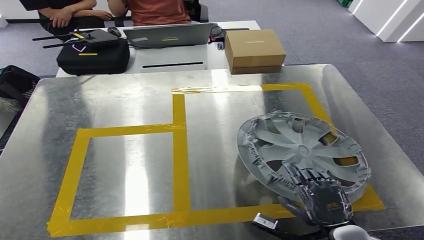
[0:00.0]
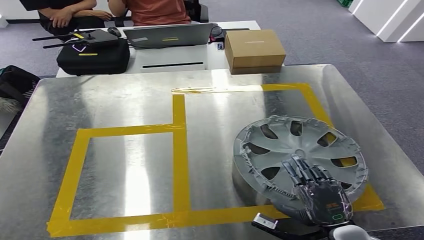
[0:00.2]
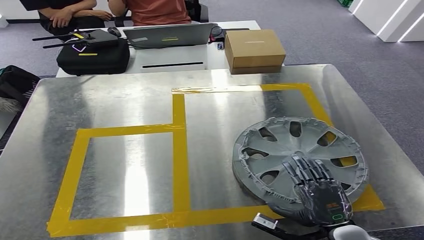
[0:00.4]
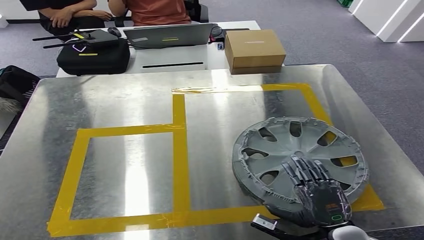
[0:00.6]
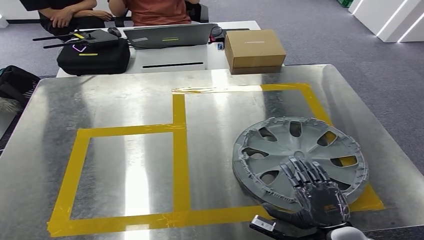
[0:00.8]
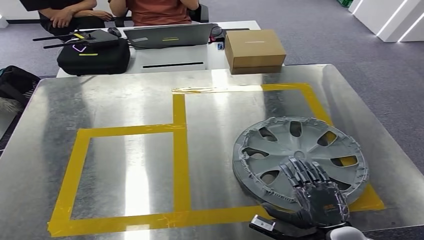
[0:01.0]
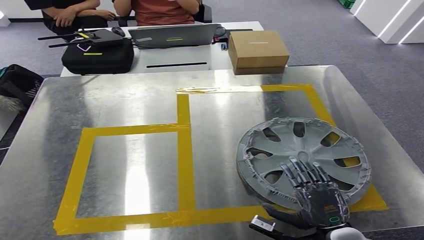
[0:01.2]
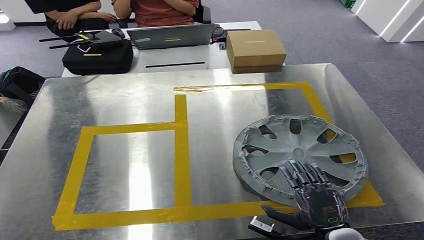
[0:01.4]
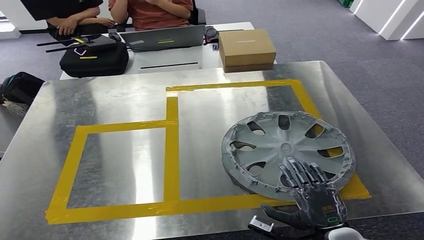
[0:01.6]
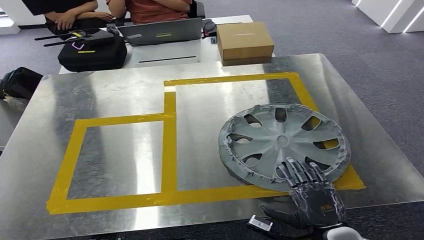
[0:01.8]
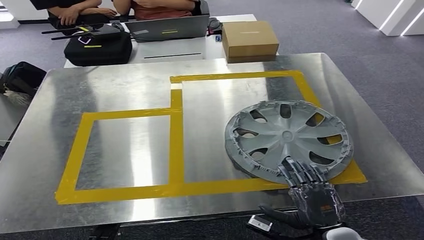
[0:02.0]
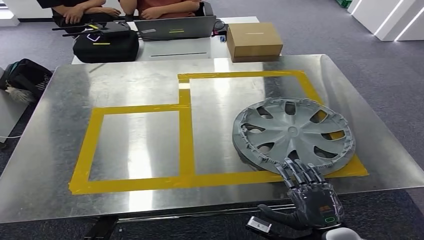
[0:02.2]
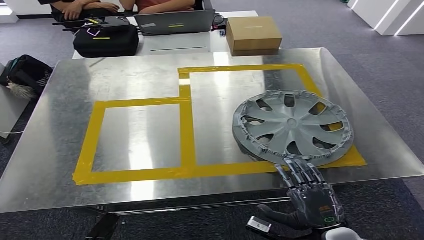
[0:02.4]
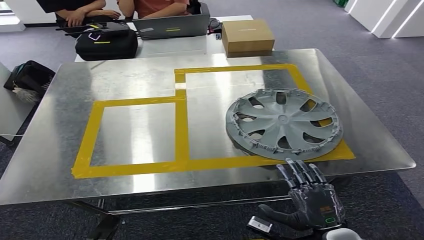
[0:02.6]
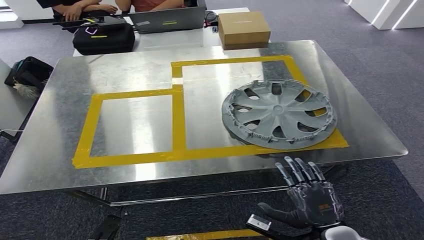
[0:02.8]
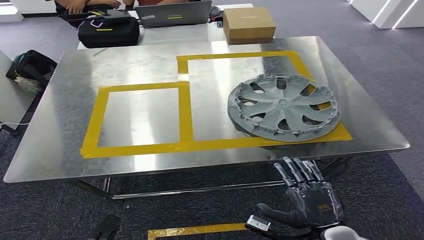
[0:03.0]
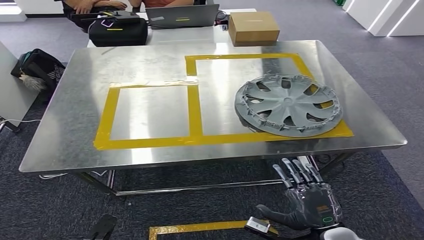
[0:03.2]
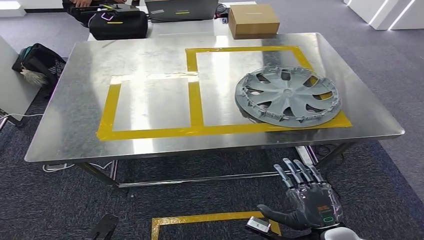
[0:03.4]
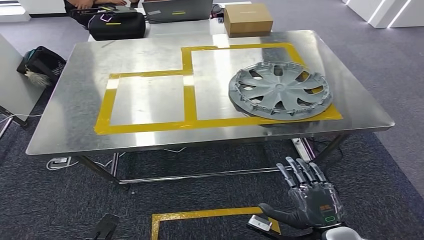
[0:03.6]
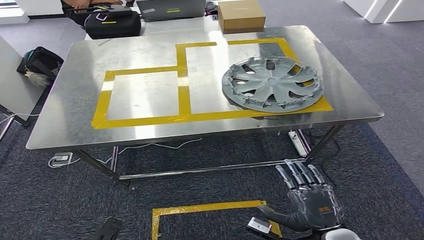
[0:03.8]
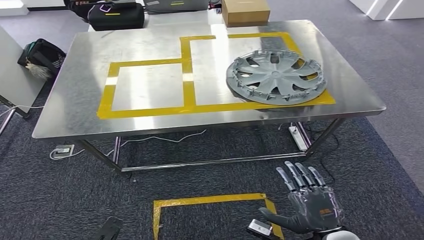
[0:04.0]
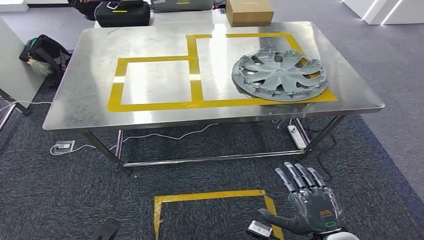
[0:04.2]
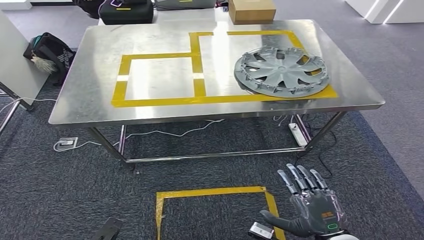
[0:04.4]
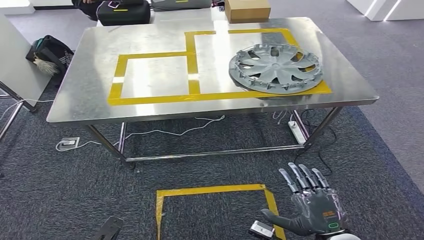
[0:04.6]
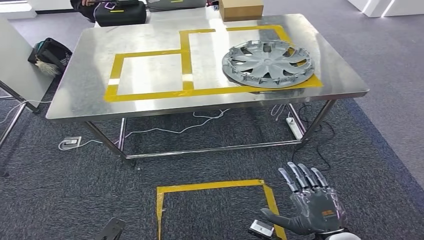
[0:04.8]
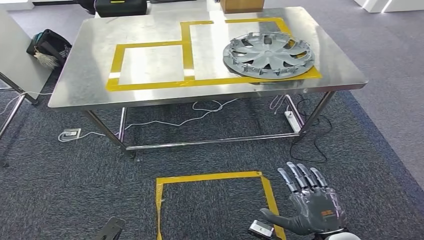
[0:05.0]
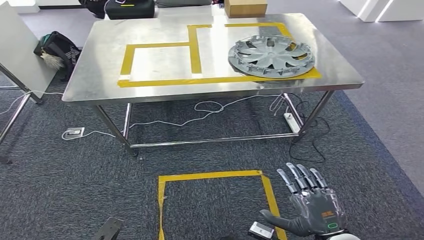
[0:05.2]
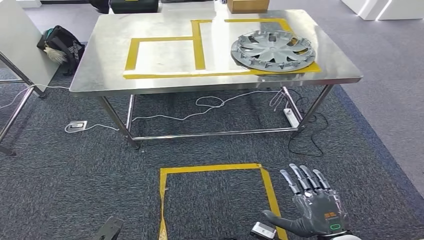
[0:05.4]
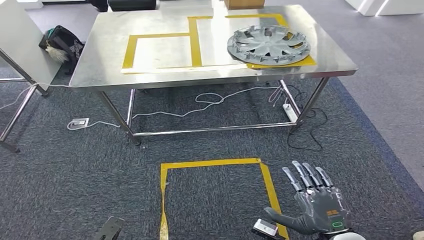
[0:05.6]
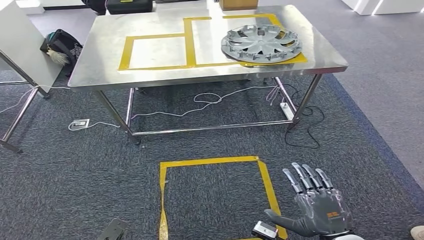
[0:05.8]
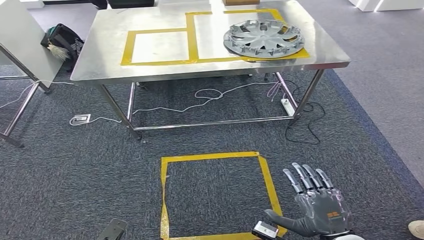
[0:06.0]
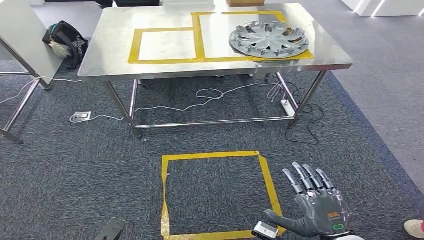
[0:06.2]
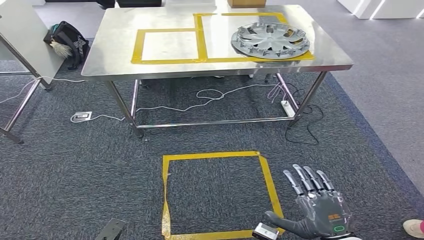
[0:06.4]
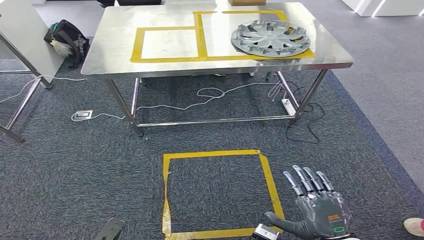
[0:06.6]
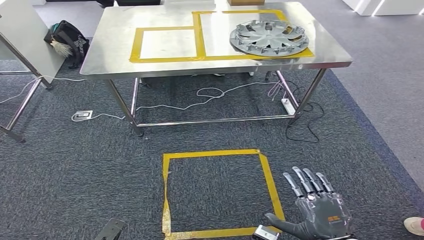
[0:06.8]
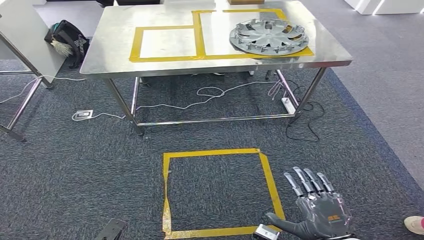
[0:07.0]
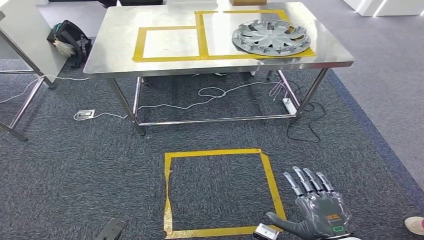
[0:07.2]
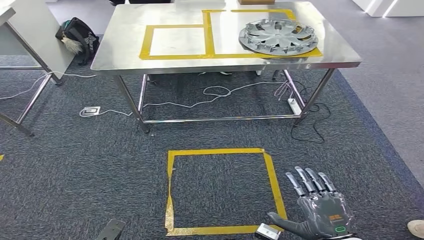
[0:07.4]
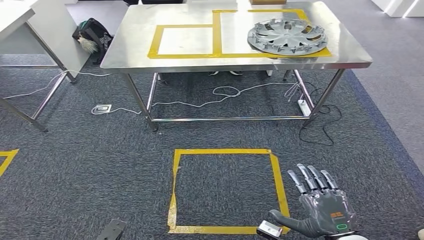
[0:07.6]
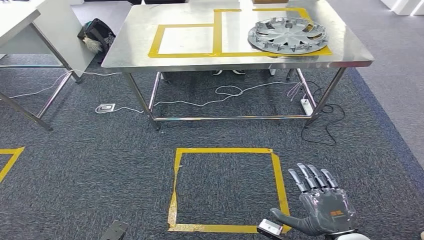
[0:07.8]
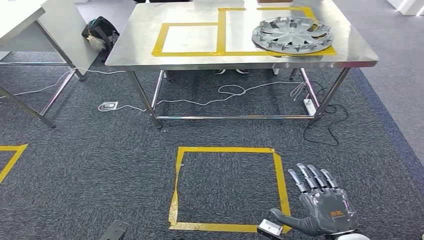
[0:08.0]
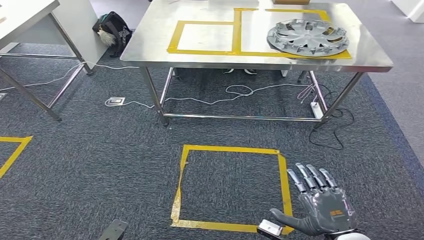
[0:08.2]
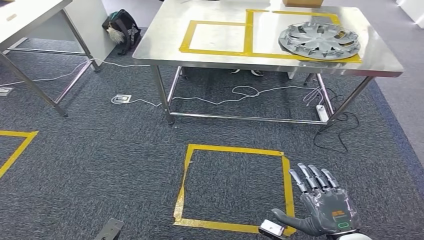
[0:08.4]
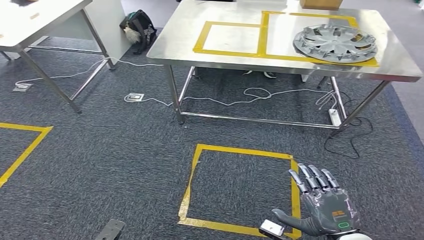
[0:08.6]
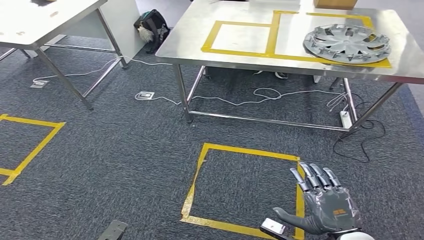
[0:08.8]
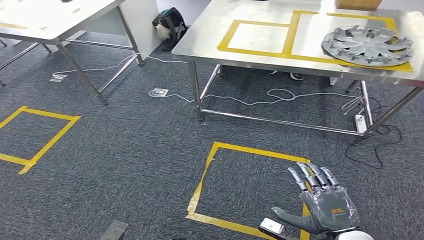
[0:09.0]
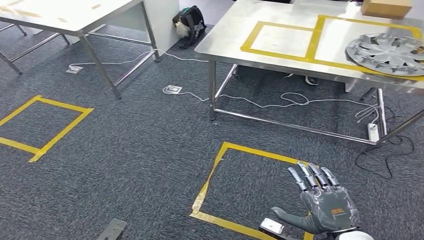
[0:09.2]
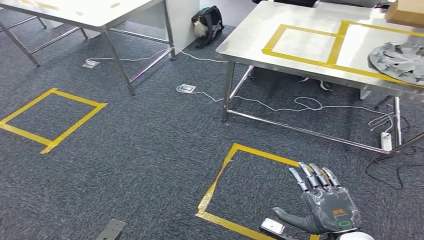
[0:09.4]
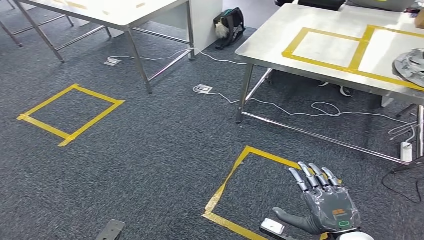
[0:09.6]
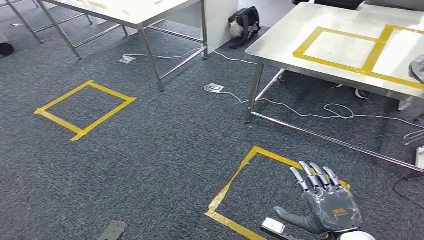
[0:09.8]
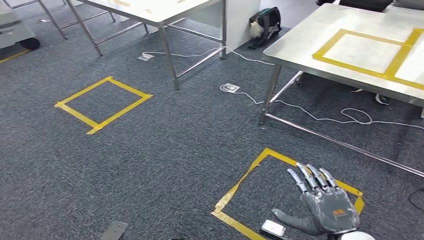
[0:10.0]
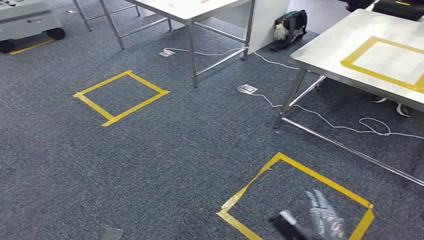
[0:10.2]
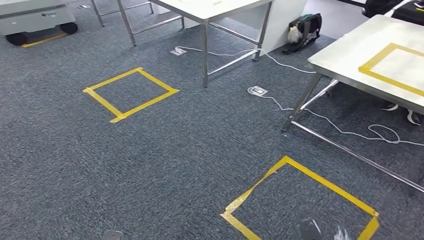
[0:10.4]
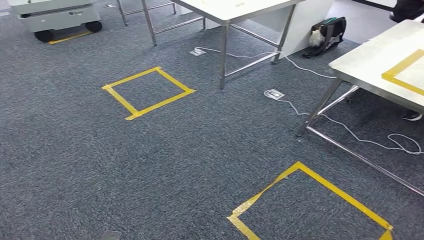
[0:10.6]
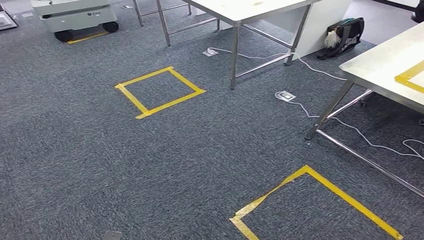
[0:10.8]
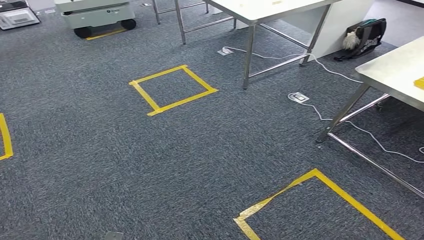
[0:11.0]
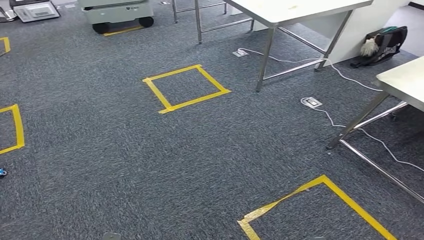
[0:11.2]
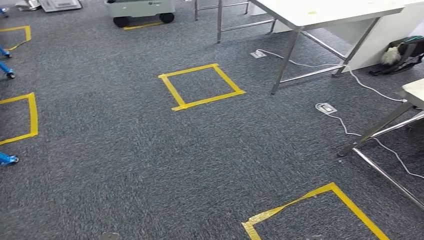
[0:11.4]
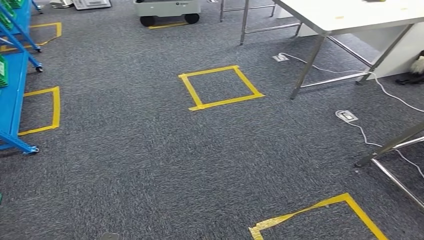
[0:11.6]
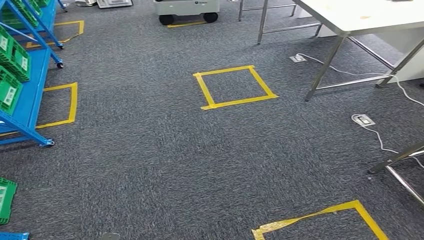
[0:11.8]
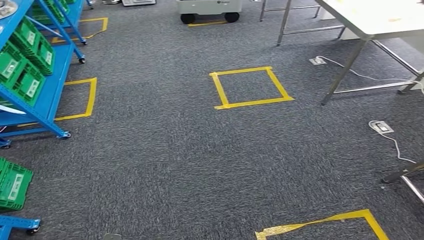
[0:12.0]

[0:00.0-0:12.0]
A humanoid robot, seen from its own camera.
Step, 0:00.0 to 0:03.2: Insert the small component into the corresponding slot on the workbench.

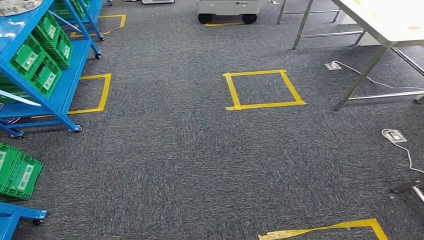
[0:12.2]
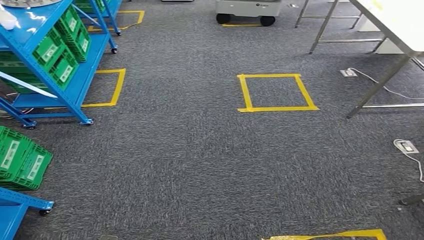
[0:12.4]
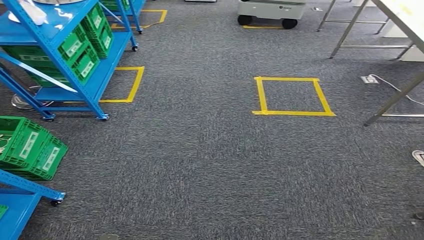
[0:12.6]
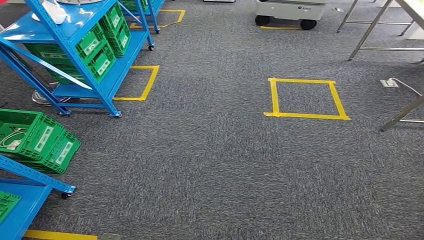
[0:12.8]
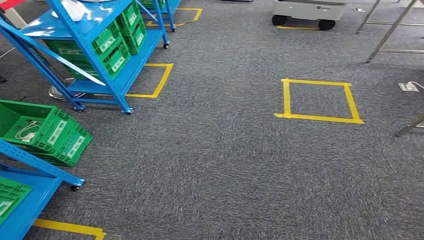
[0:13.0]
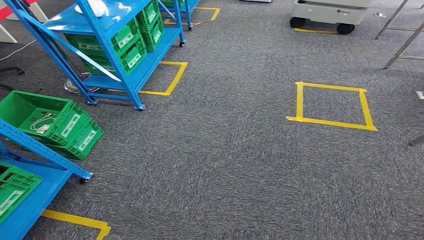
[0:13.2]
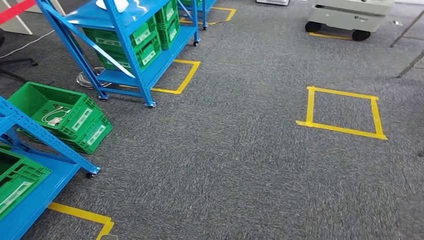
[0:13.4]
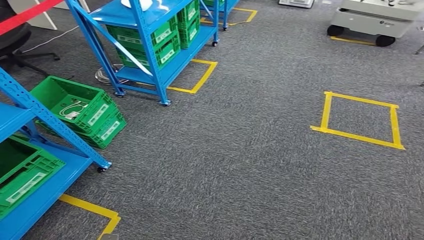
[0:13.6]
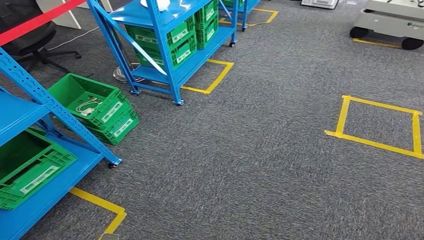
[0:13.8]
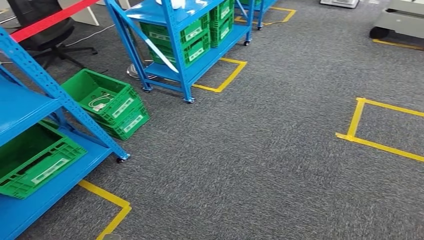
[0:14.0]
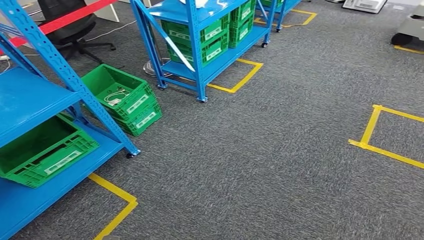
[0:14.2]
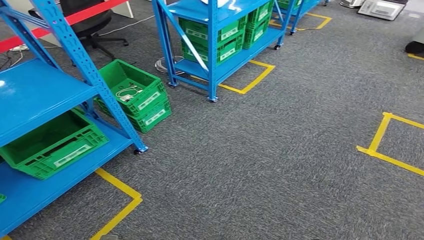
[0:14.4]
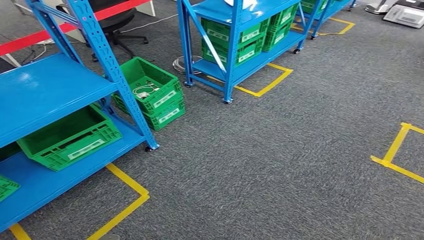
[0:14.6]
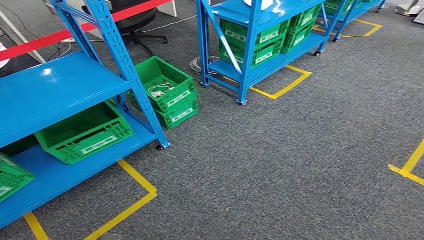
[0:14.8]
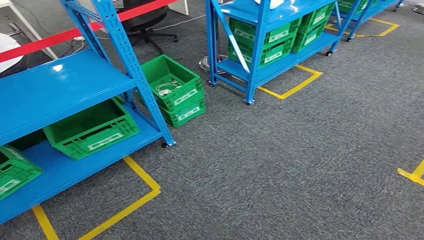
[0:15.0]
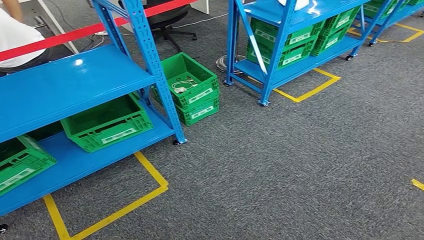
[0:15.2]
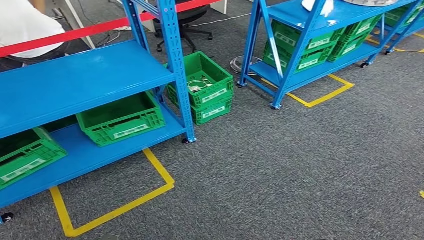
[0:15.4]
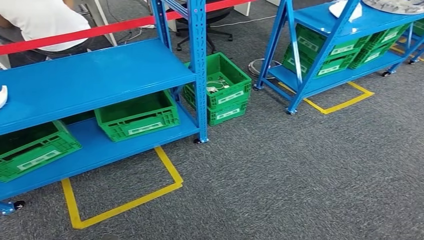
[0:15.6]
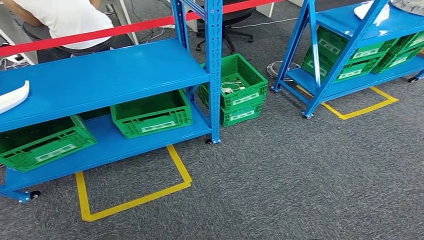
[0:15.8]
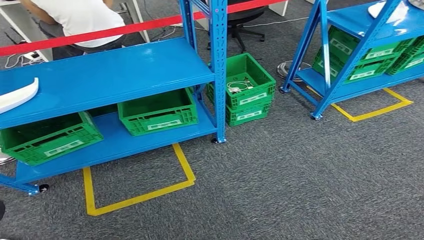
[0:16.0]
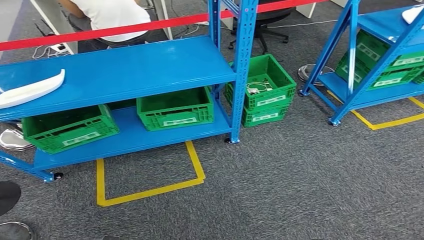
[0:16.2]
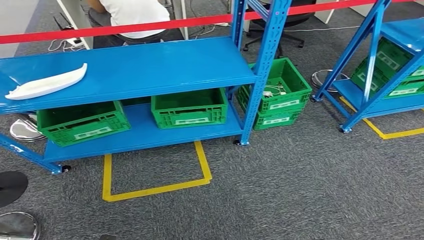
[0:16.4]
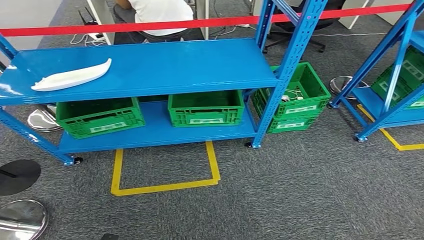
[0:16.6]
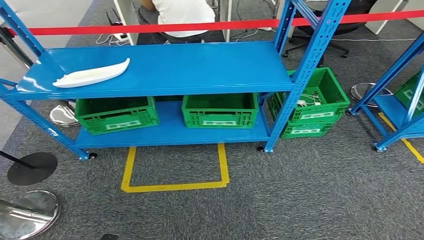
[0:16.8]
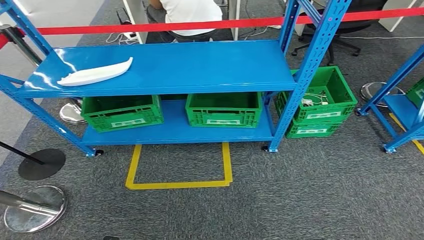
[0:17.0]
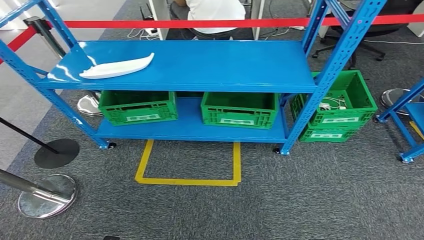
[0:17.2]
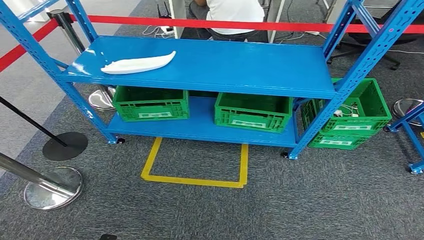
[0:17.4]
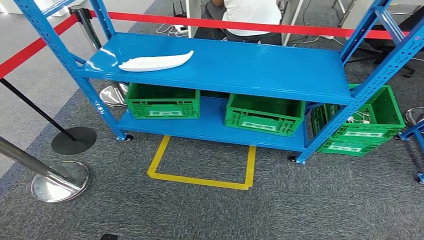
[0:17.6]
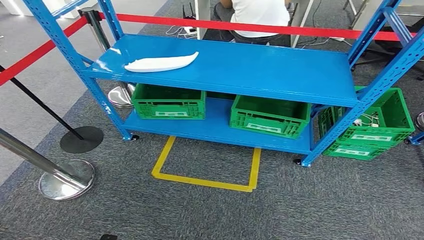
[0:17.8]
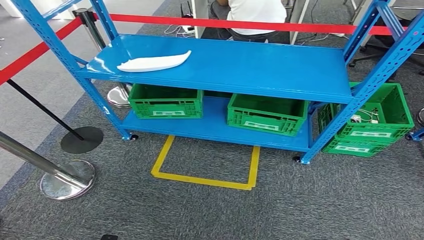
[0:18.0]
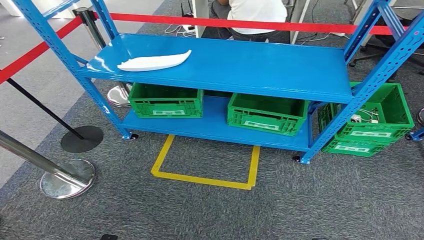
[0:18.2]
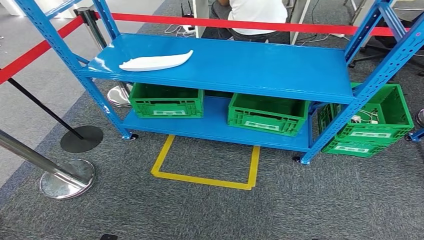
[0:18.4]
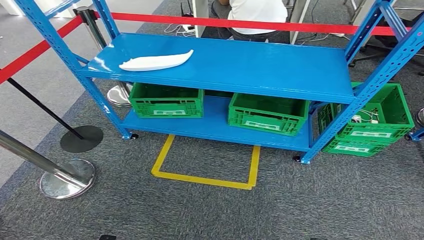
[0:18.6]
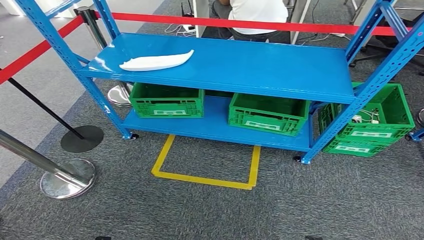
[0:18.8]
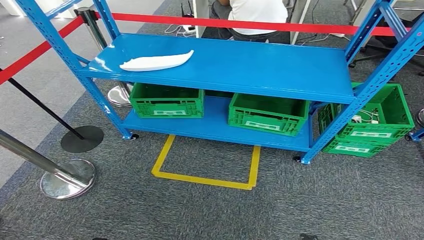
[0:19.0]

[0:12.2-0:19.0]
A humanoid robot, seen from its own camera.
Step, 0:12.2 to 0:19.0: Return to the initial position at the workbench.
